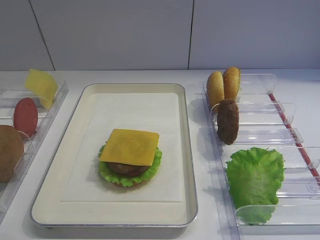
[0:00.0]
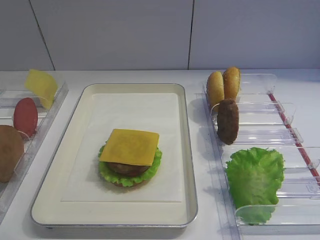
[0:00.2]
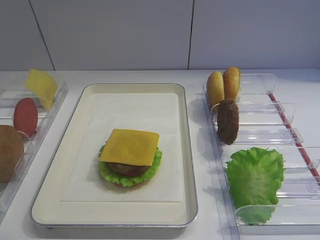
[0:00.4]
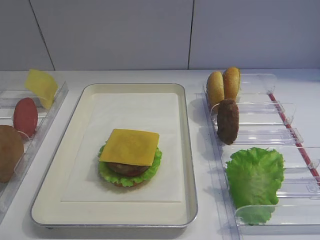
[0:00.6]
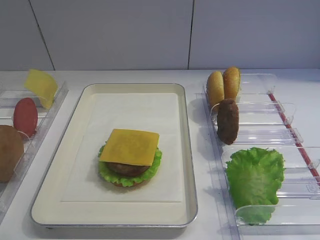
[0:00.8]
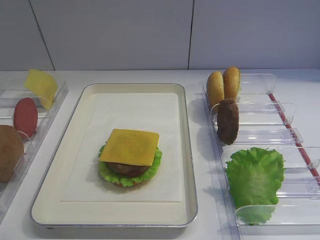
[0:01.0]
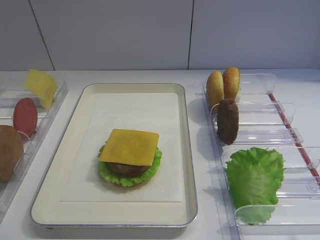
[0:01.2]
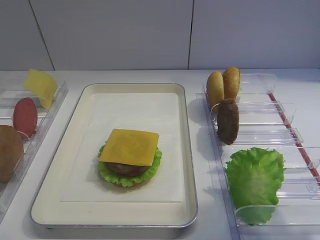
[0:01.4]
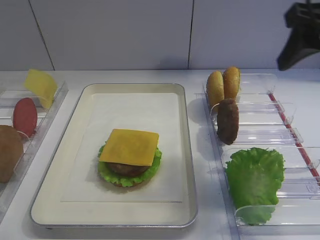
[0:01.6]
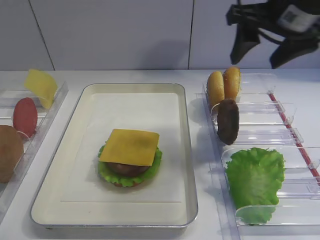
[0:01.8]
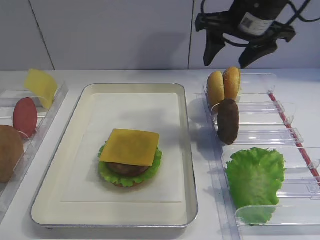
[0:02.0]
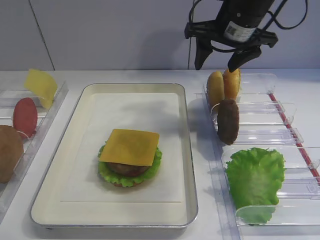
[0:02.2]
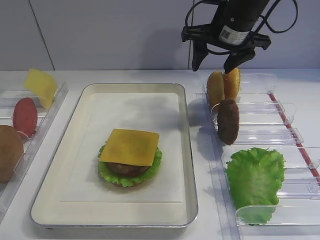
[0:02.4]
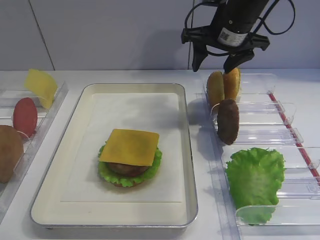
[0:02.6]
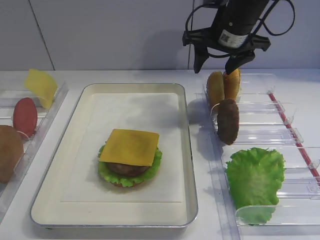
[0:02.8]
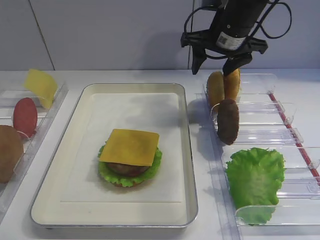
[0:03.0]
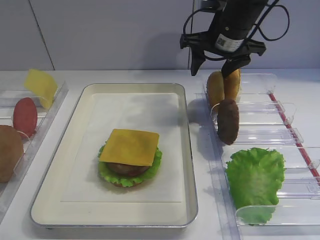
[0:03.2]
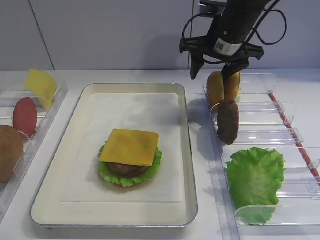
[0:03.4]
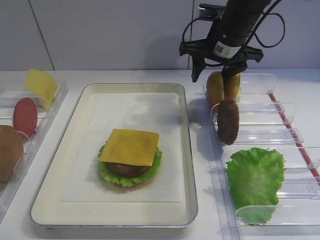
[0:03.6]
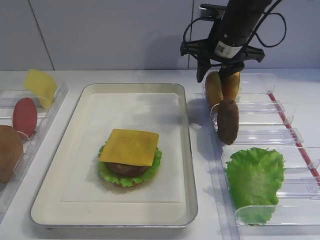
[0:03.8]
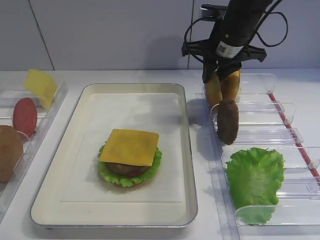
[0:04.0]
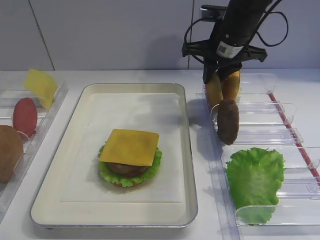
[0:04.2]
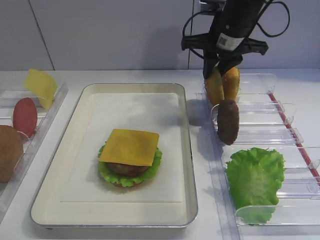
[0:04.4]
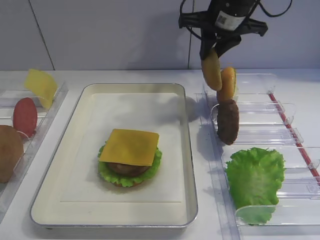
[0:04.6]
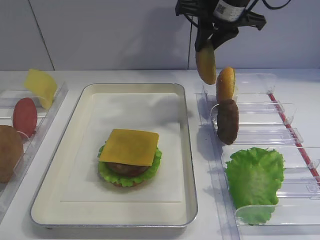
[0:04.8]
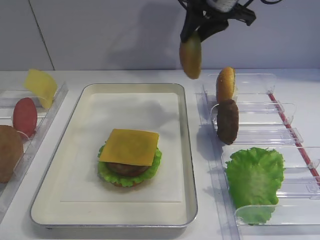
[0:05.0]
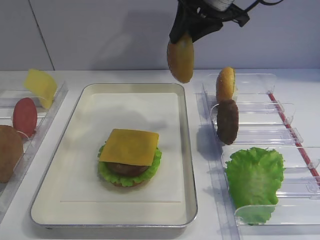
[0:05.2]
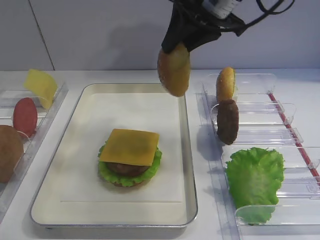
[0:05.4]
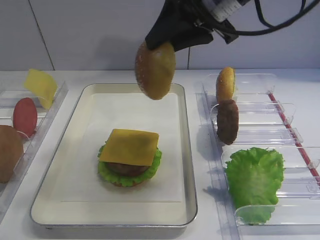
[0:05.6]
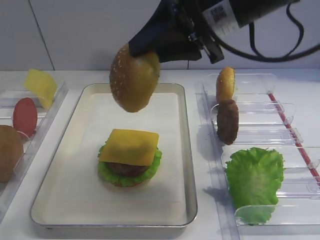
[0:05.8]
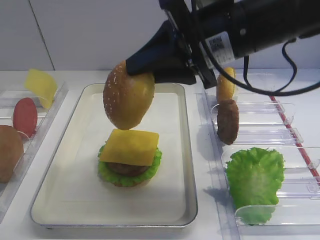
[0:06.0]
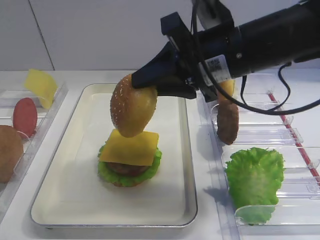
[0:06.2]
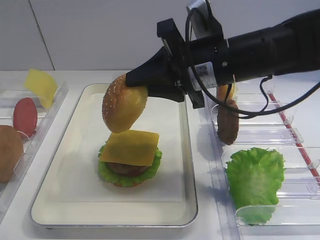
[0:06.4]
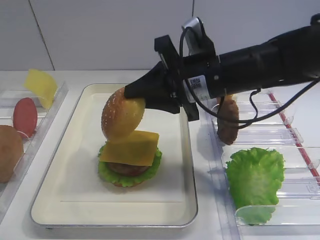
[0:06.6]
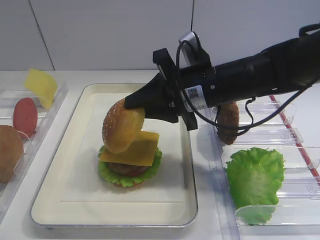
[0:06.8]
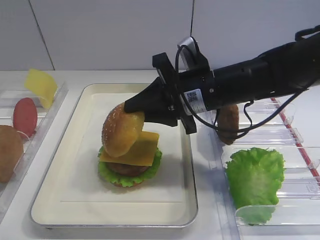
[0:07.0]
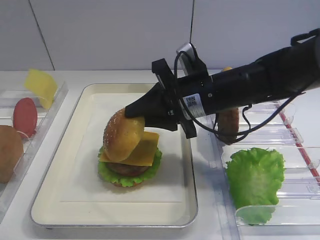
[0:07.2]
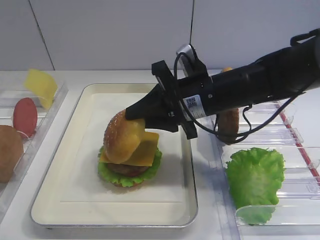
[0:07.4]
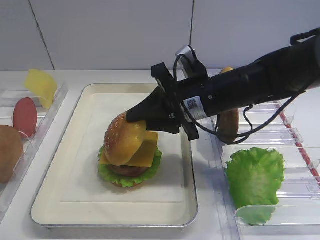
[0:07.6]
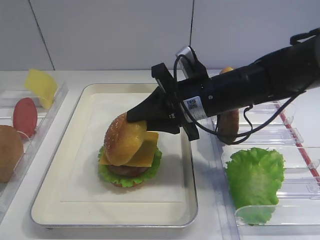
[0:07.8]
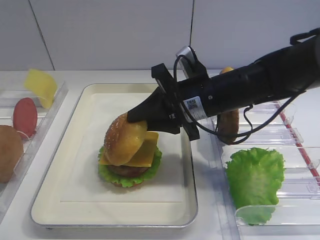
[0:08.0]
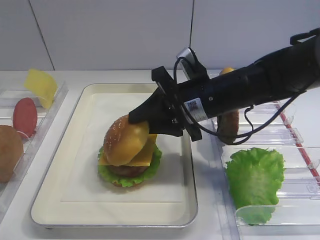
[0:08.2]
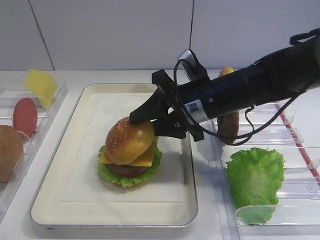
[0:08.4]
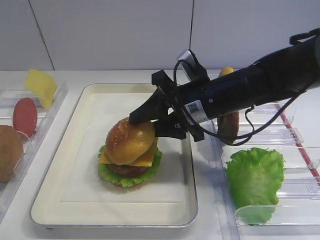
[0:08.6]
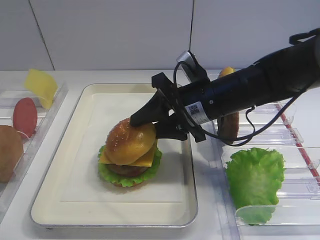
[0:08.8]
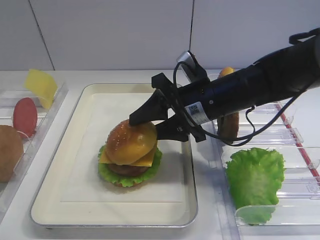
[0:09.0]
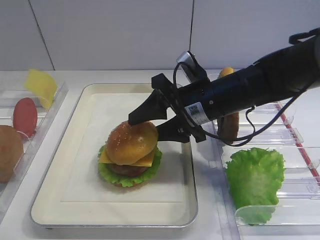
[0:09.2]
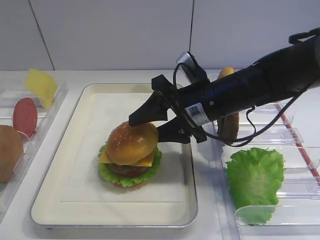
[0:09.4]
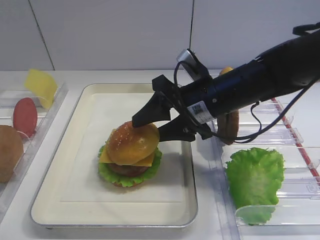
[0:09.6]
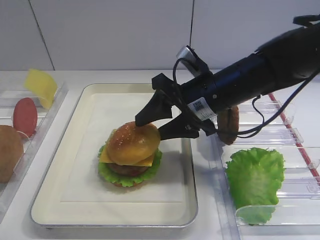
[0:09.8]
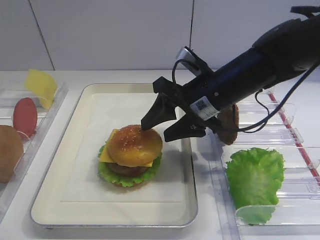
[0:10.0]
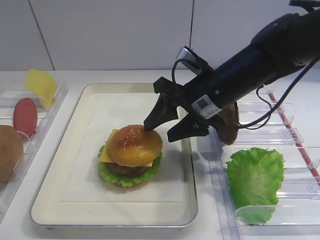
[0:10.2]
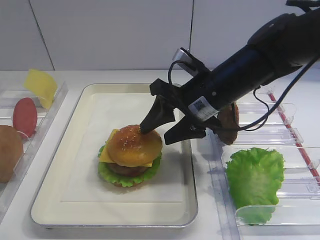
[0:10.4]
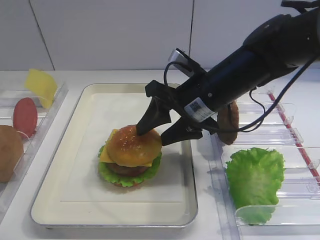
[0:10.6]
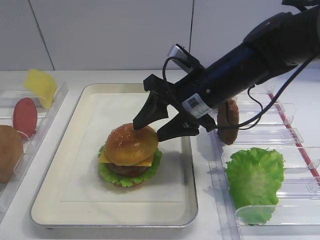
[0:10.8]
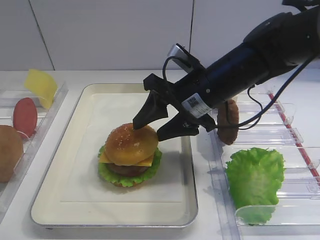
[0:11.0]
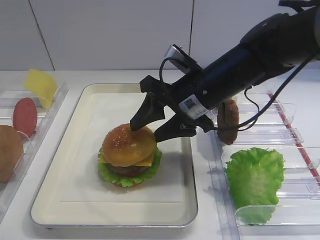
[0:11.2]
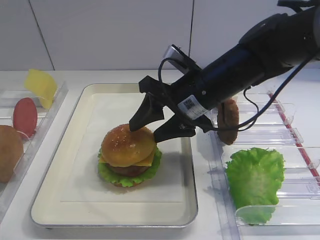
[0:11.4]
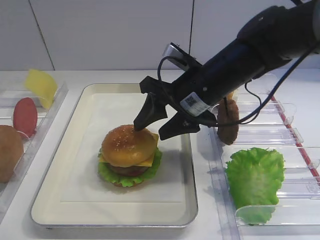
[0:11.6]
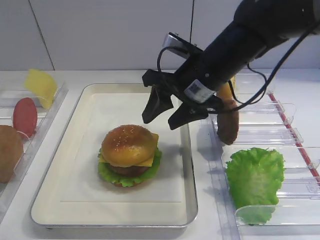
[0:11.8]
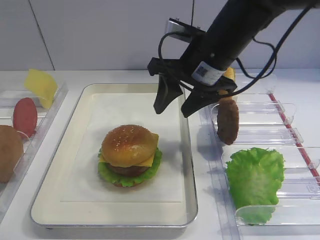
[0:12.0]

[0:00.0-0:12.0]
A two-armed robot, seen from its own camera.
Step, 0:00.0 to 0:04.4: Pick up the hamburger lid with the right gripper.
Step, 0:04.6 to 0:09.8: Place the hamburger lid on the cheese slice with the right gripper.
0:01.6 to 0:03.0: The right gripper is displaced forward, to the left and downward by some 20 cm.
0:03.0 to 0:04.4: The right gripper closes up.
0:04.4 to 0:06.0: The right gripper moves backward, about 15 cm.
0:06.0 to 0:07.6: The right gripper heads downward, covering some 10 cm.
0:07.6 to 0:09.0: The right gripper opens.
0:09.0 to 0:10.4: The grippers move only a little.
0:10.4 to 0:12.0: The right gripper heads upward, covering about 5 cm.

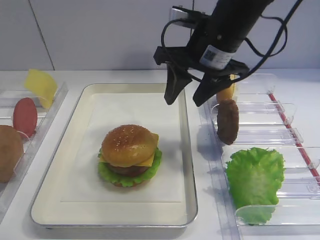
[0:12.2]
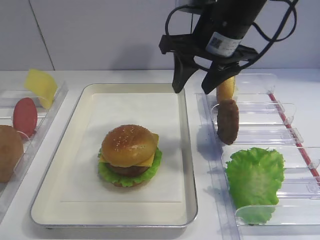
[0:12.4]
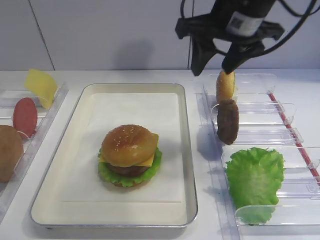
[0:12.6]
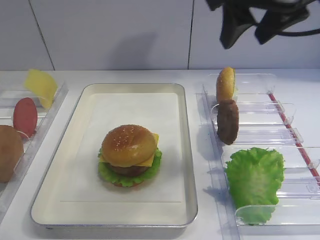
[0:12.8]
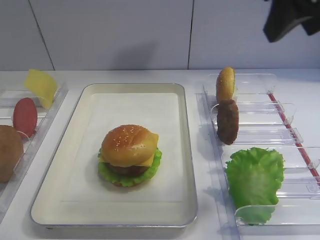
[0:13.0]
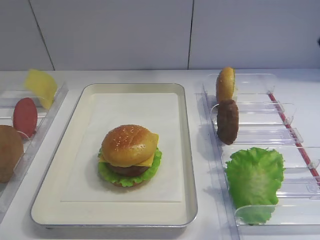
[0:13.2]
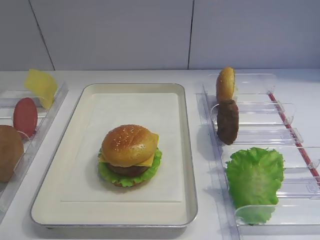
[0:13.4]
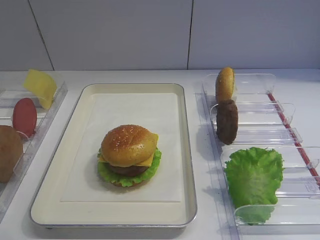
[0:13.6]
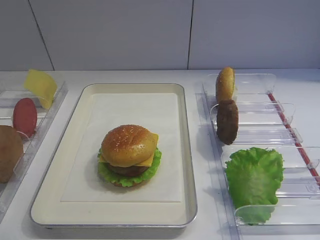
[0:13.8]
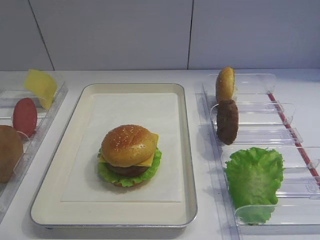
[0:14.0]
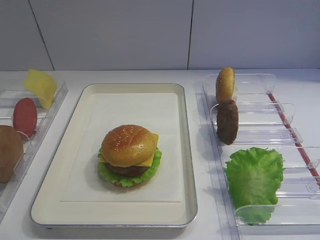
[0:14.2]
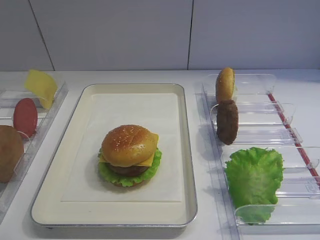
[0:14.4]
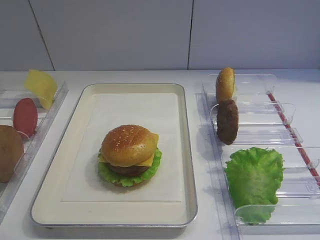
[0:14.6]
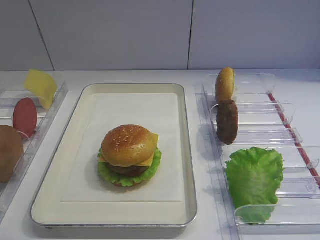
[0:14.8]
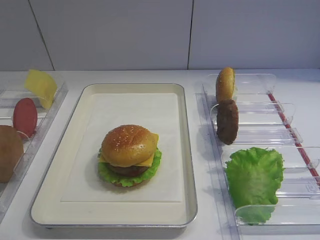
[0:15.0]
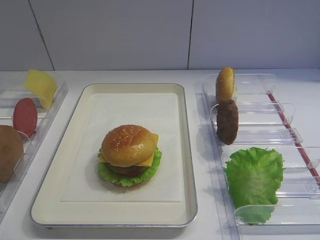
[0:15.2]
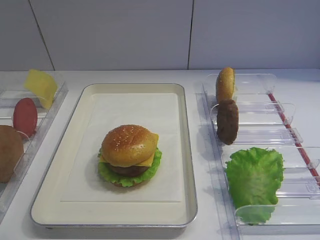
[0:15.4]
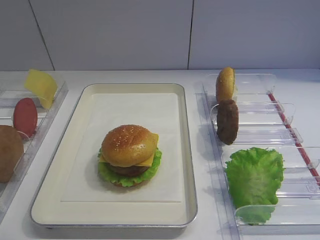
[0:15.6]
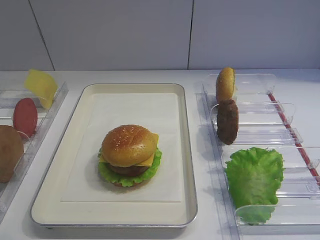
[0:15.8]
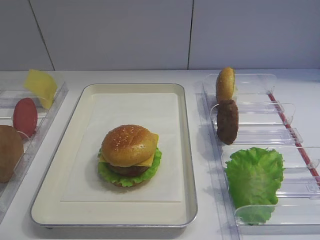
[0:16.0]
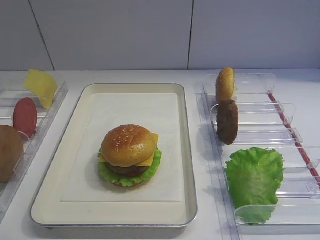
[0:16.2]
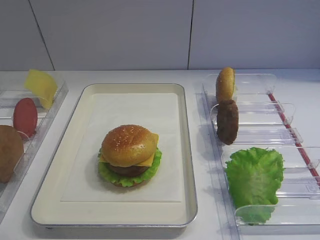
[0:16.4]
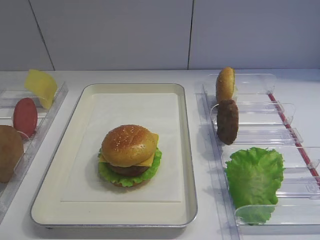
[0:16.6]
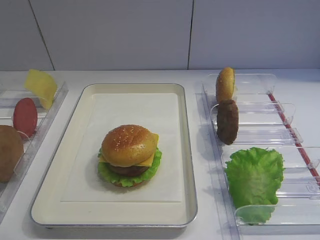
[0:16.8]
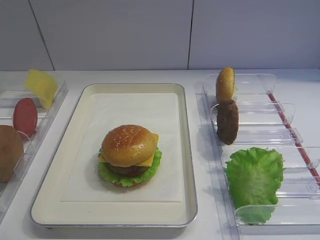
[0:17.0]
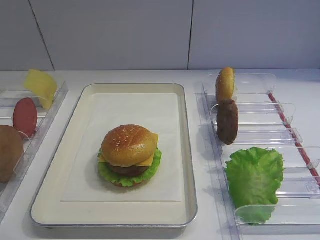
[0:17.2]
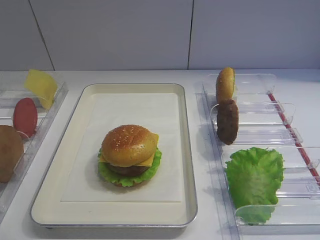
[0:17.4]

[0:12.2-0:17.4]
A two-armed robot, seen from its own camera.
0:12.2 to 0:14.0: The right gripper is displaced backward and to the right by roughly 40 cm.
0:15.6 to 0:17.4: The two grippers keep their place.
